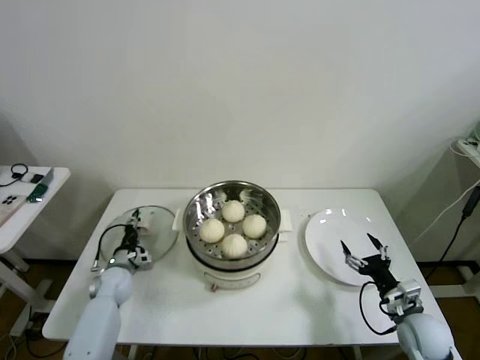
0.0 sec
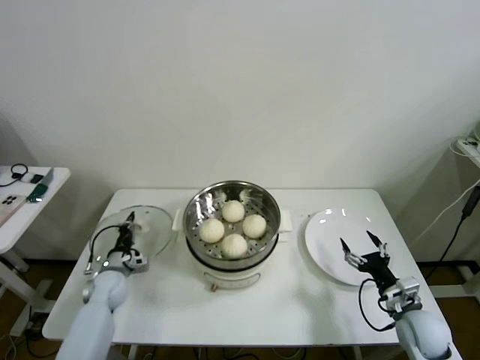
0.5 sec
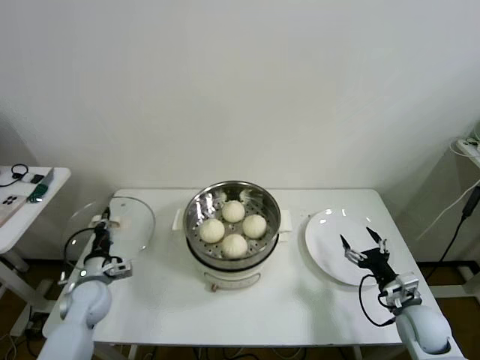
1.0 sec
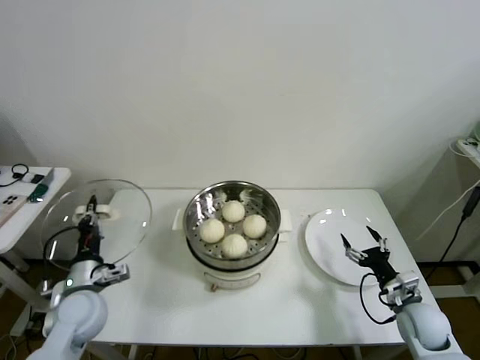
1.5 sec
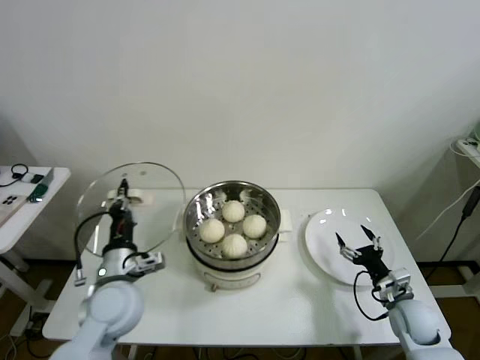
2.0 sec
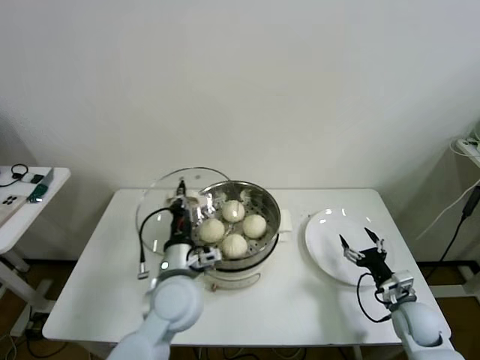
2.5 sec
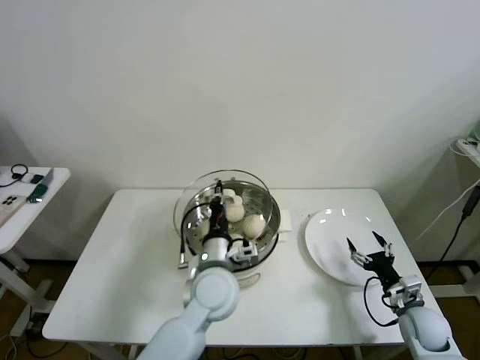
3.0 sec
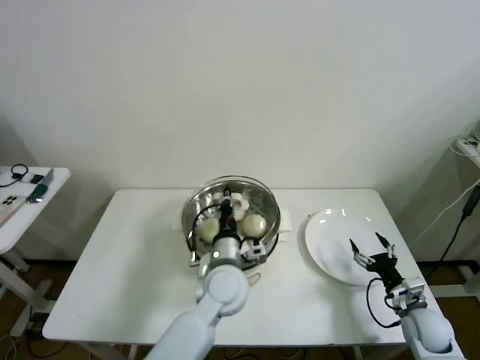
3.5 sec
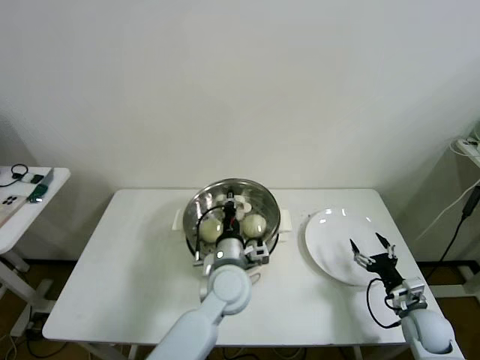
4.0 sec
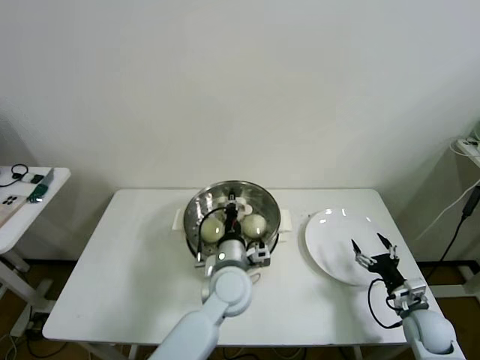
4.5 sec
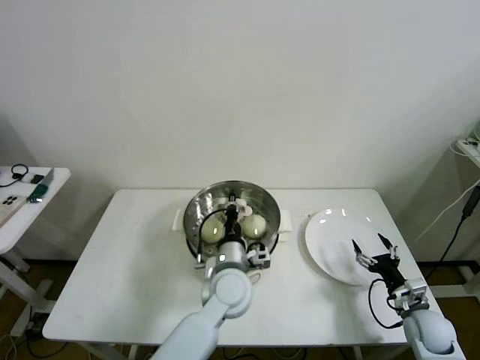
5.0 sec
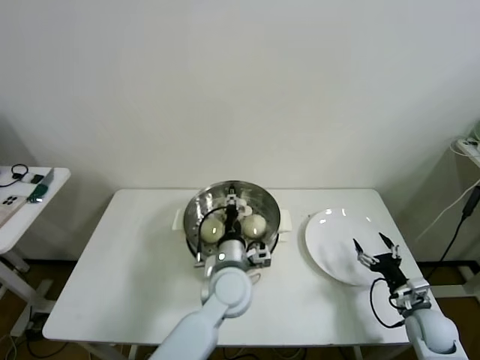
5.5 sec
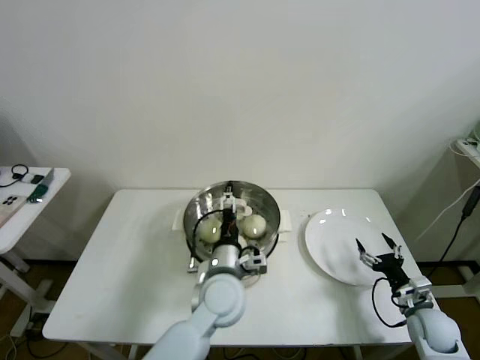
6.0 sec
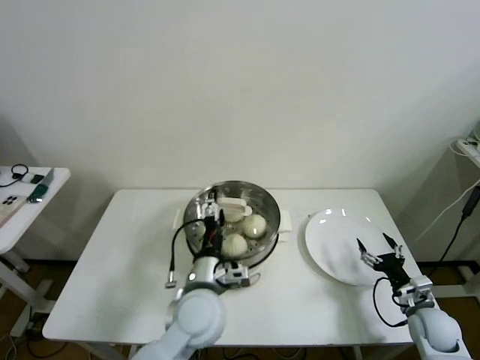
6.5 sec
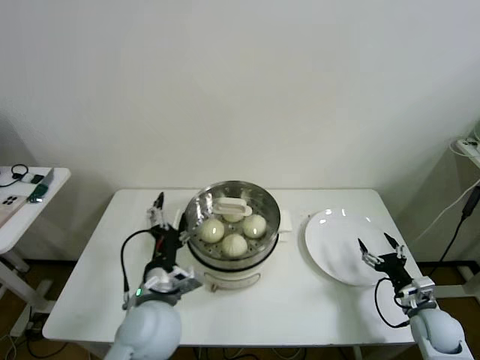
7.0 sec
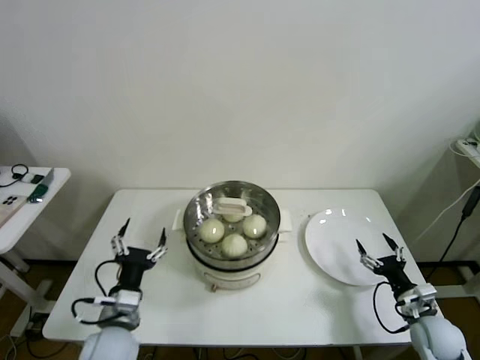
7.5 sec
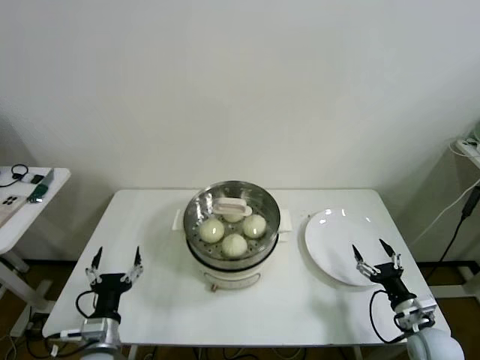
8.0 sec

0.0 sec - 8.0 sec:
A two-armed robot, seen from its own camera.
Task of the whole recording: take steamed baozi put them in steamer then cover it.
Step, 0.5 sec - 6.0 sec: Place the pot lid on the steamer with left gripper.
0.0 sec - 2.0 sec: The left gripper is displaced upward, backward and to the right by roughly 25 cm, and closes up.
2.0 sec - 4.0 sec: The left gripper shifts about 20 cm to the right.
4.0 sec - 6.0 sec: The left gripper opens.
6.0 sec - 8.0 sec: The left gripper is displaced to the left and backward by some 30 cm.
